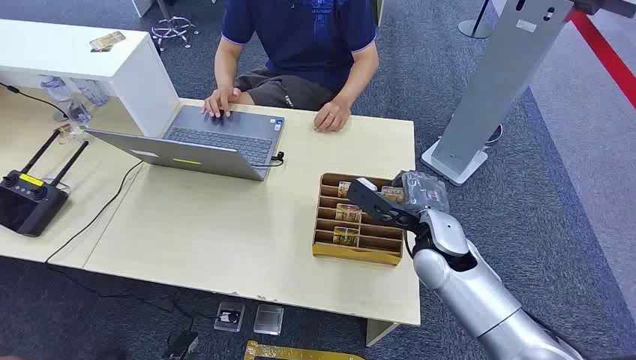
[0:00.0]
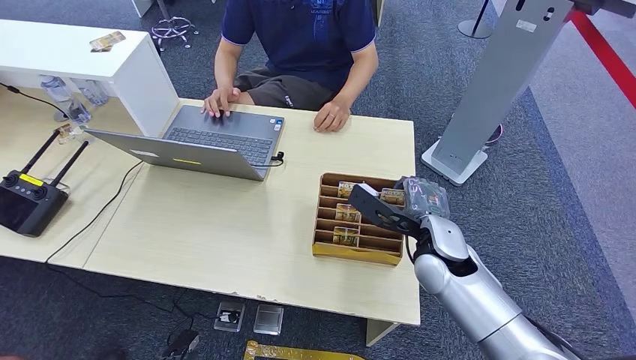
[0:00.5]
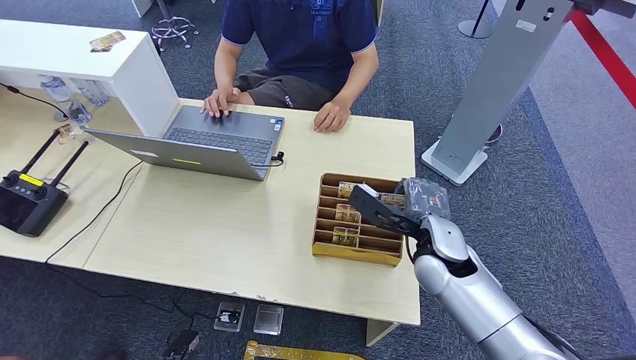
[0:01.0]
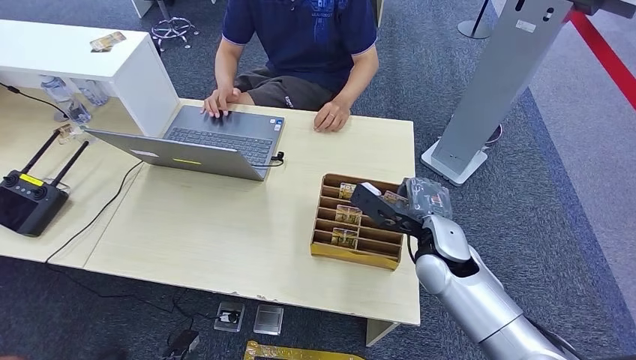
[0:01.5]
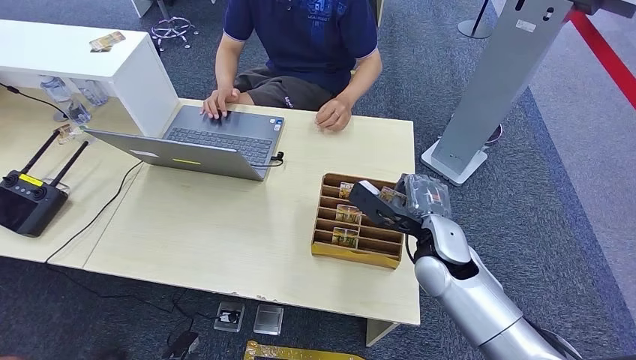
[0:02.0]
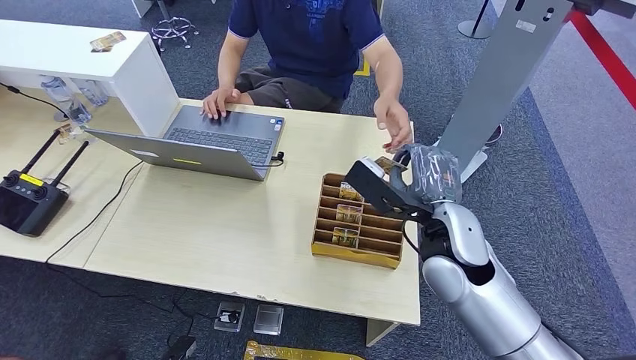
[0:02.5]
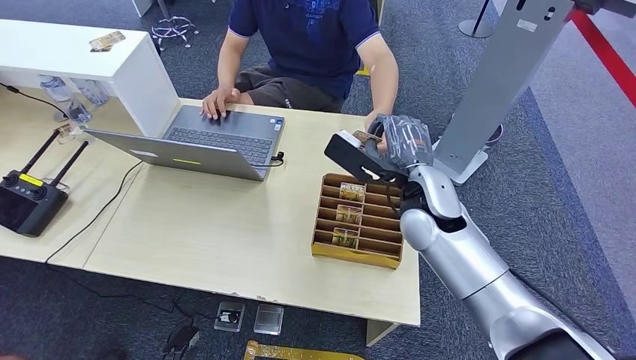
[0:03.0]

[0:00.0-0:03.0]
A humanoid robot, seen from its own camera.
Step, 0:00.0 to 0:02.0: Pick up the key card from the card box.
Step, 0:02.5 to 0:03.0: Hand the key card to the target.
0:01.5 to 0:03.0: The right hand is displaced upward by approximately 10 cm.
